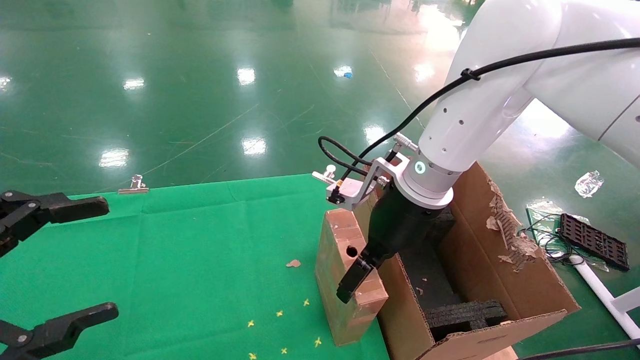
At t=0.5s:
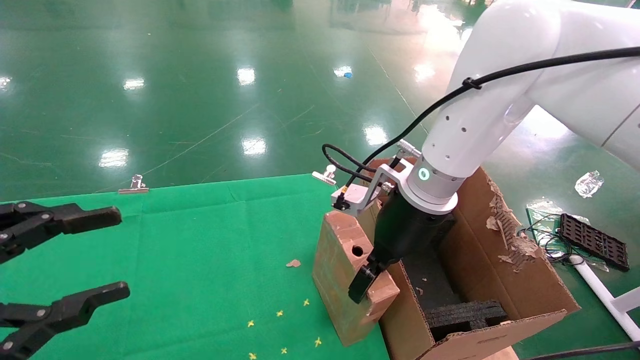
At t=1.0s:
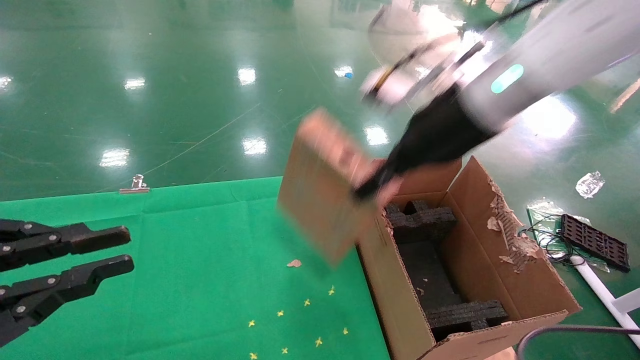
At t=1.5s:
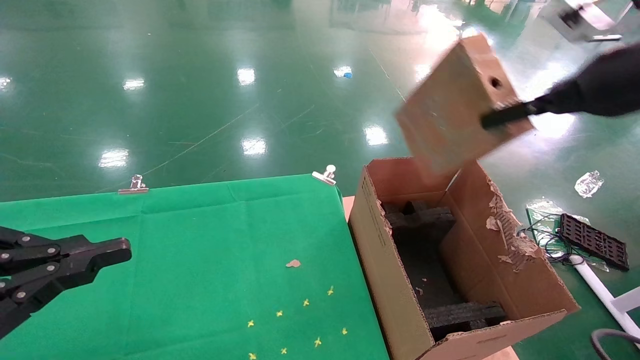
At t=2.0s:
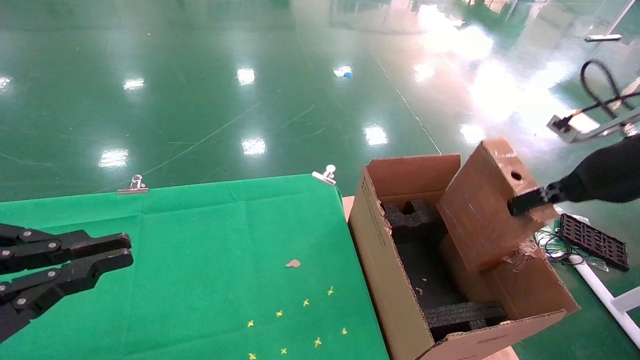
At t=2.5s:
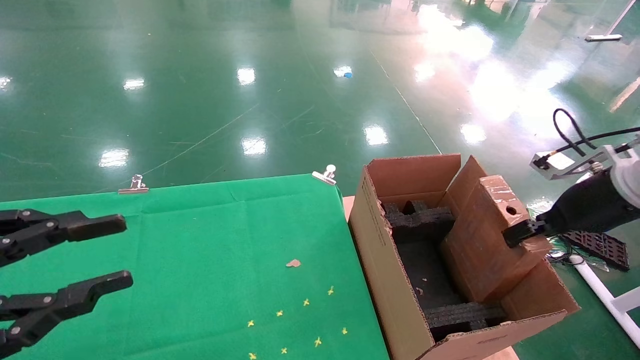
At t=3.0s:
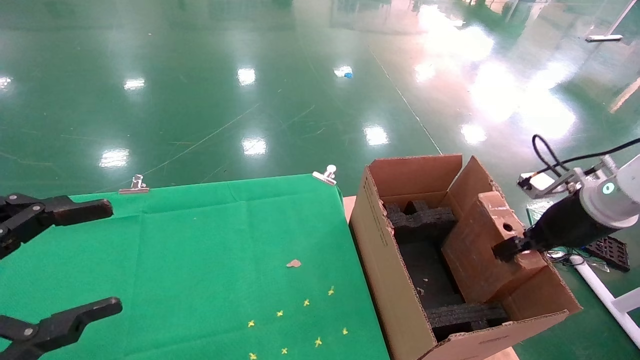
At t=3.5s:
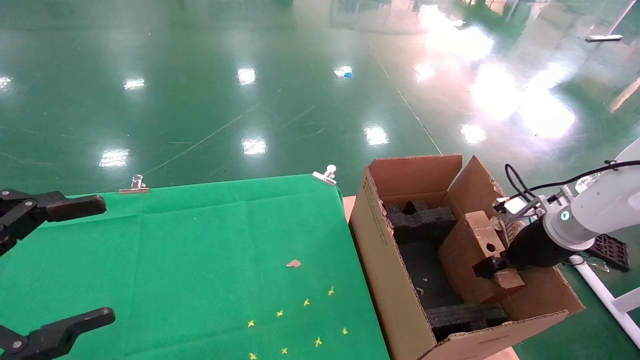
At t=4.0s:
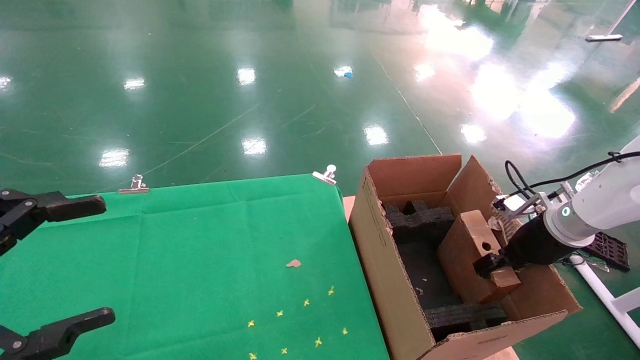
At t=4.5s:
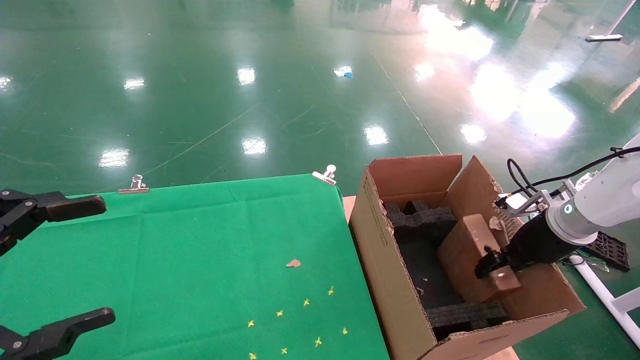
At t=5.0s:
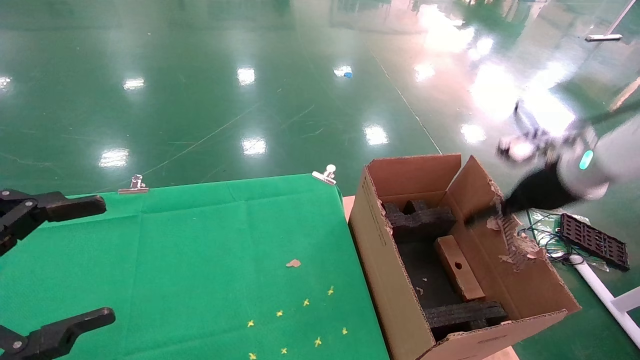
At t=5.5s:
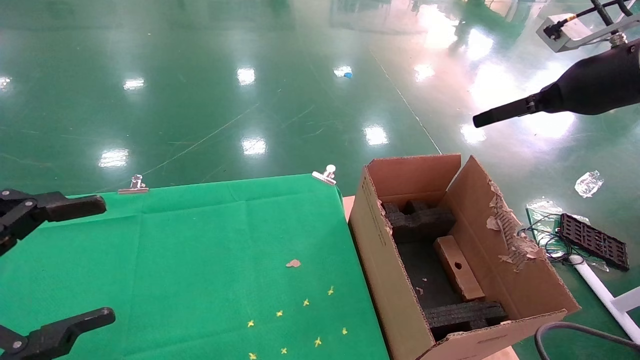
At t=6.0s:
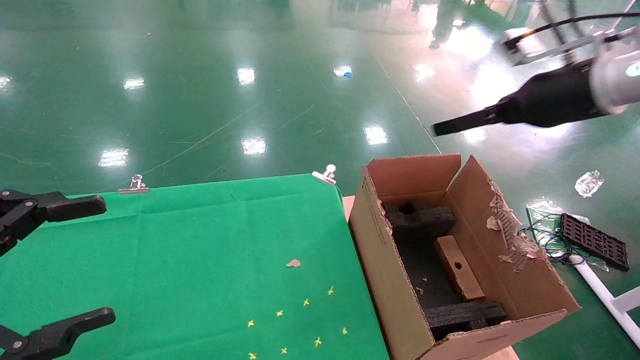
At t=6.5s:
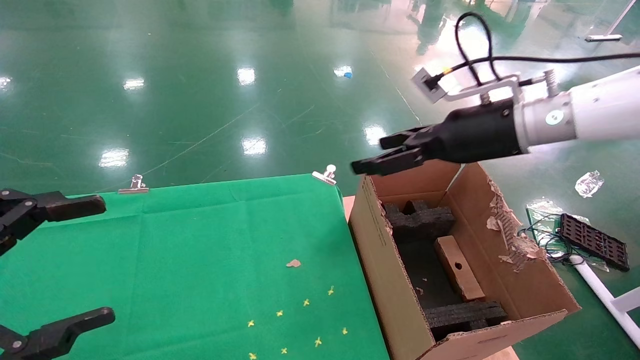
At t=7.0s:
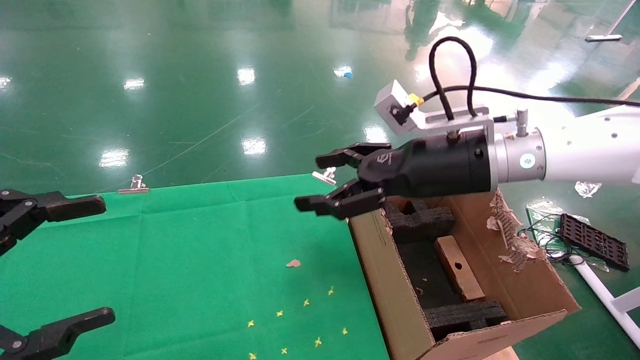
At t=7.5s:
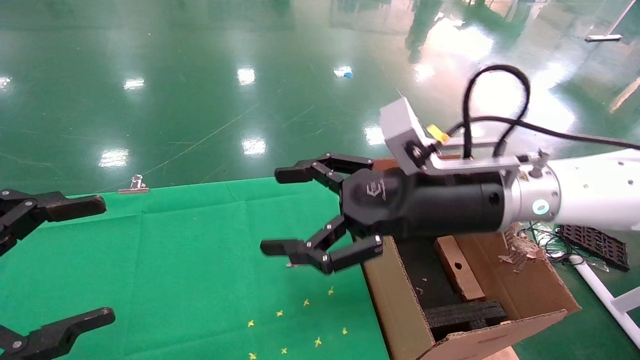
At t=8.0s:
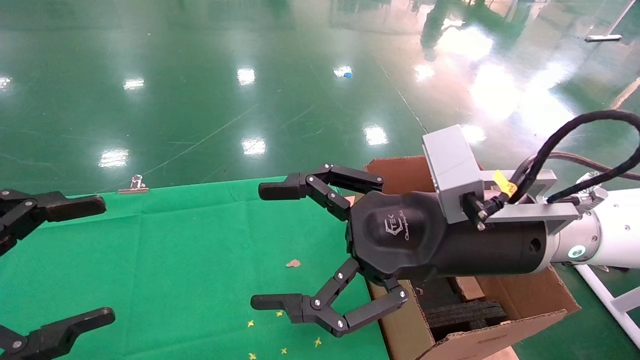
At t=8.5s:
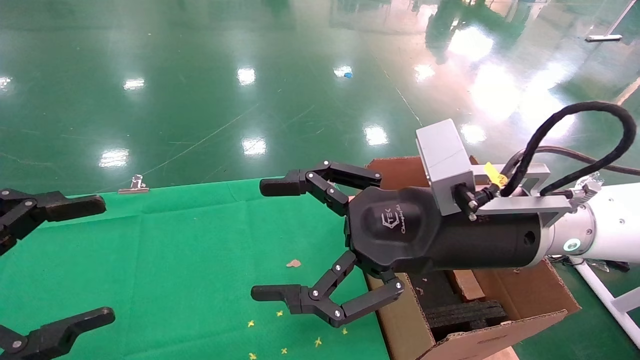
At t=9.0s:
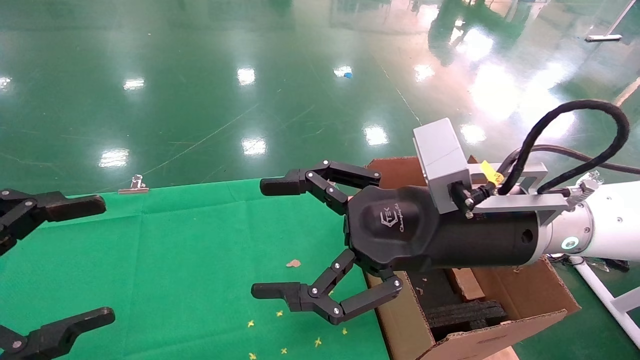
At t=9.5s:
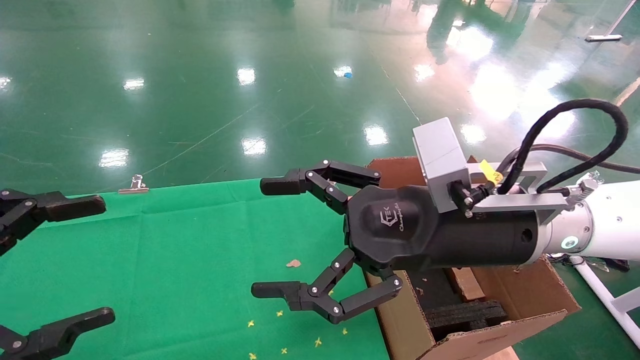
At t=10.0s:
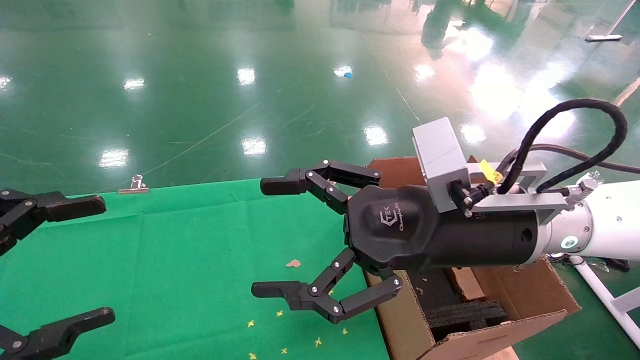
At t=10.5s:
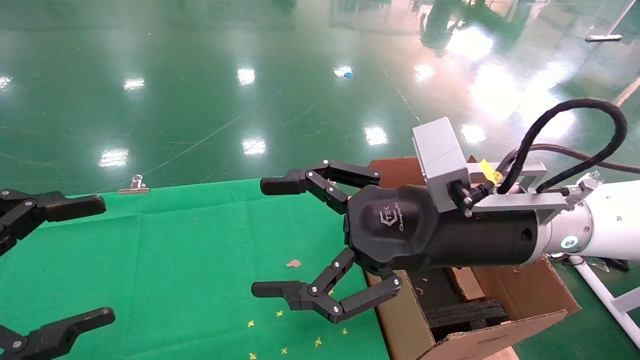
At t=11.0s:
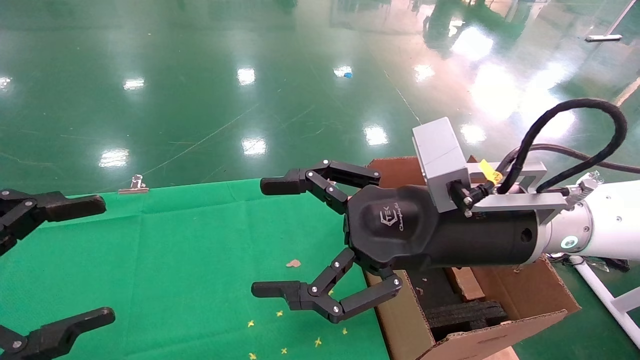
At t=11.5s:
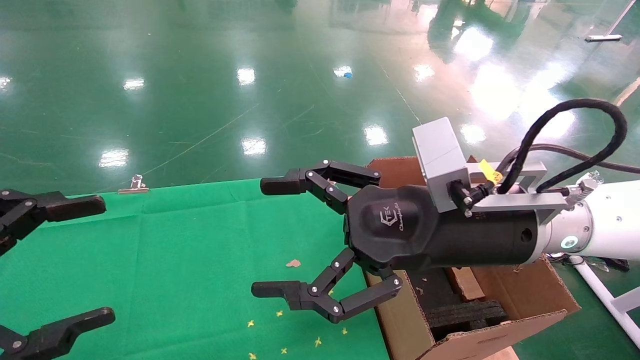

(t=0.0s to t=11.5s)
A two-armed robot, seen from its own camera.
Task of the whole recording: using a robotic arm to pick up a cardboard box and palace it the carton.
Step, t=1.0s - t=4.5s: Place the mouse and the power cord paper box into the container.
t=0.0s - t=2.0s: The right gripper travels to the right by roughly 25 cm, and closes, while the left gripper closes.
t=2.0s - t=4.0s: The left gripper opens its fingers. The right gripper is displaced downward and forward by approximately 15 cm.
t=4.0s - t=6.0s: The right gripper moves upward, approximately 20 cm, and opens.
t=6.0s - t=7.5s: The right gripper heads to the left and downward, covering some 20 cm.
t=7.5s - t=9.5s: There are only small adjustments of the grippers.
t=9.5s - t=11.5s: Both grippers stay about where they are.
